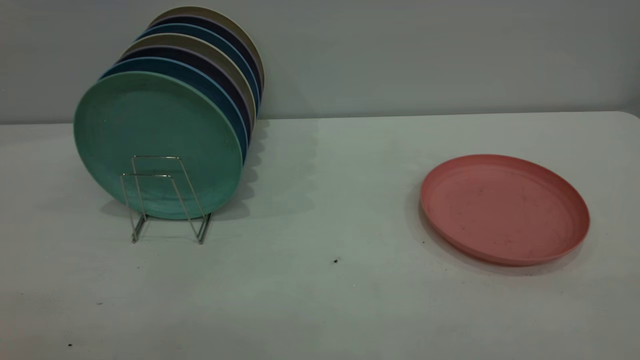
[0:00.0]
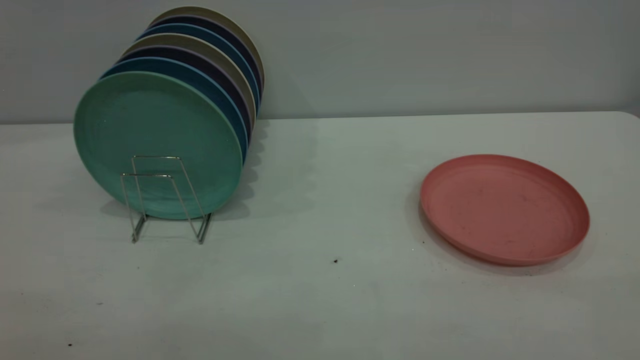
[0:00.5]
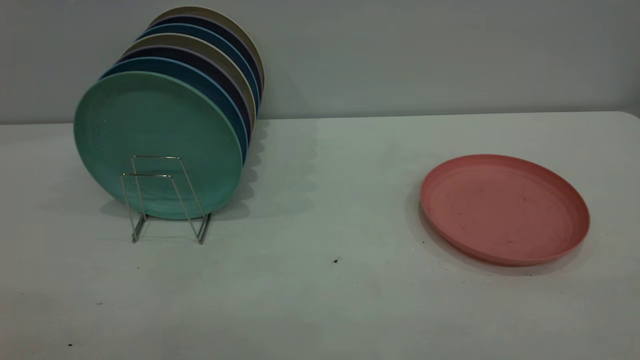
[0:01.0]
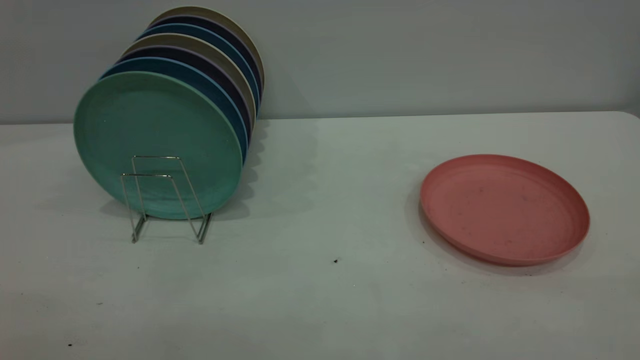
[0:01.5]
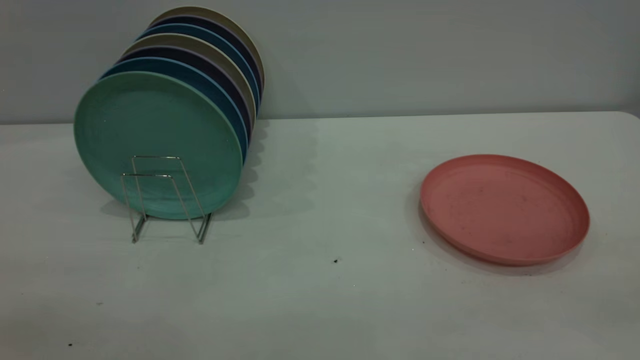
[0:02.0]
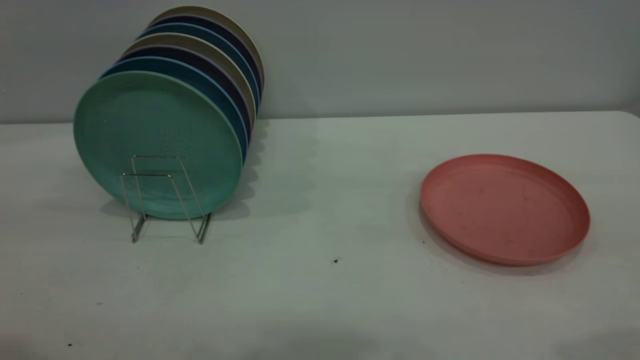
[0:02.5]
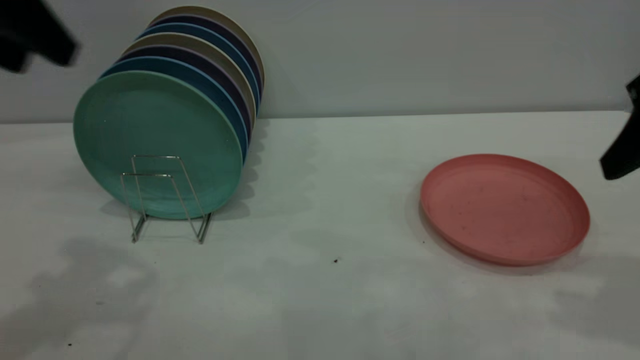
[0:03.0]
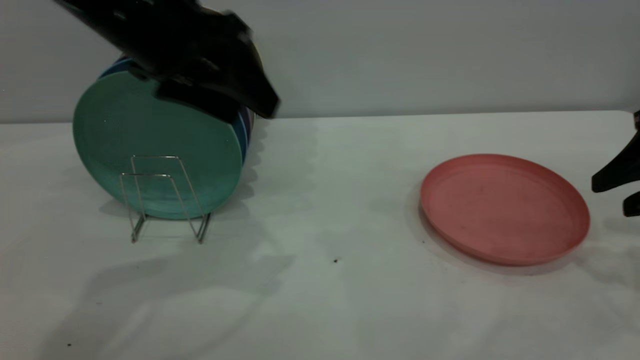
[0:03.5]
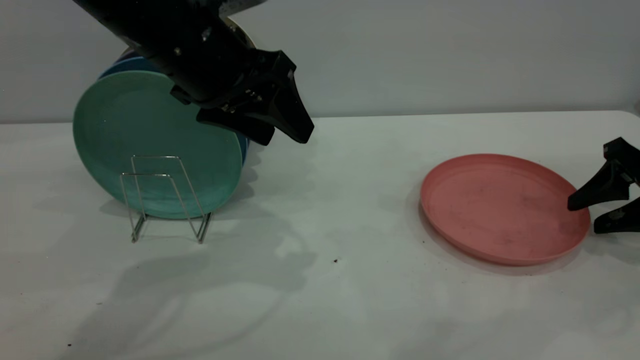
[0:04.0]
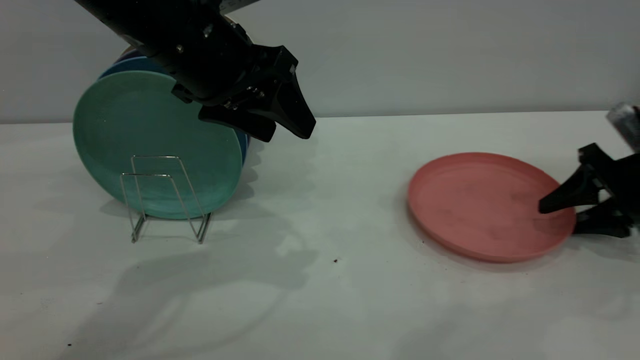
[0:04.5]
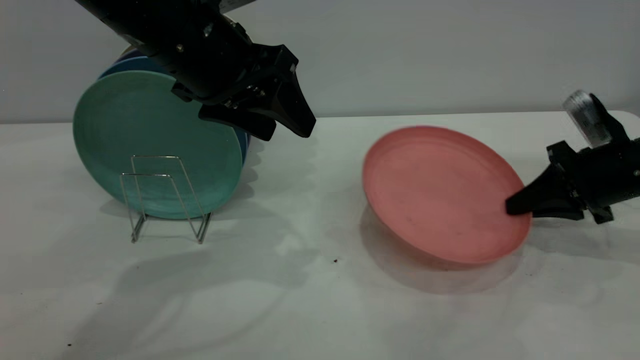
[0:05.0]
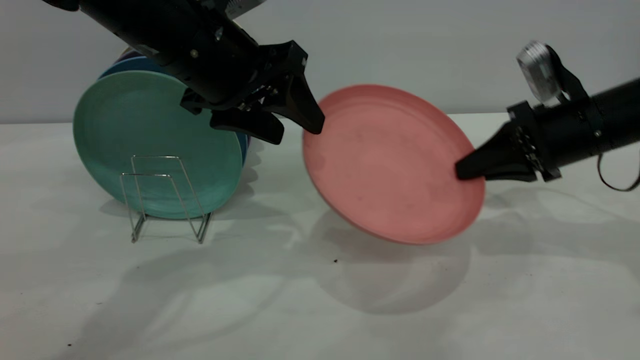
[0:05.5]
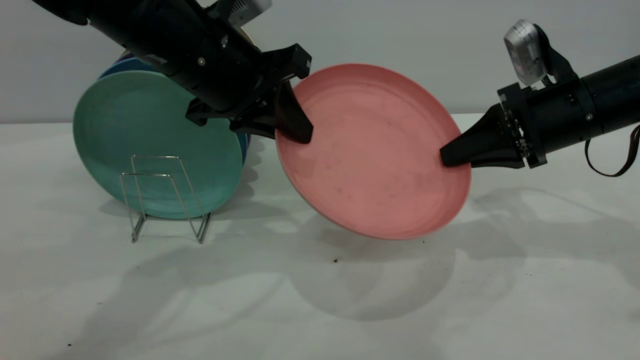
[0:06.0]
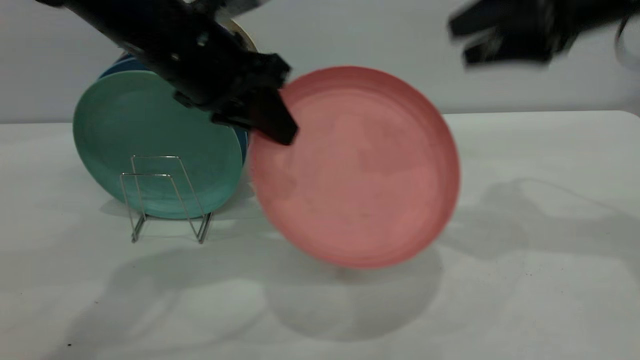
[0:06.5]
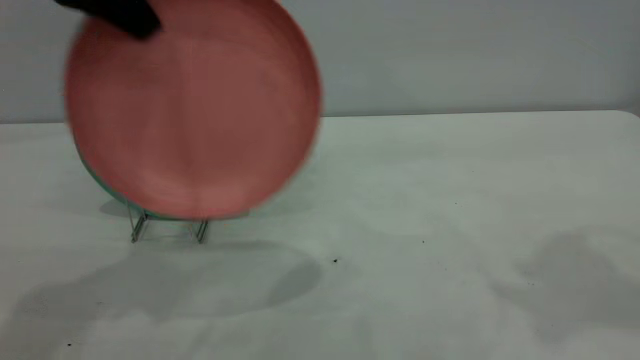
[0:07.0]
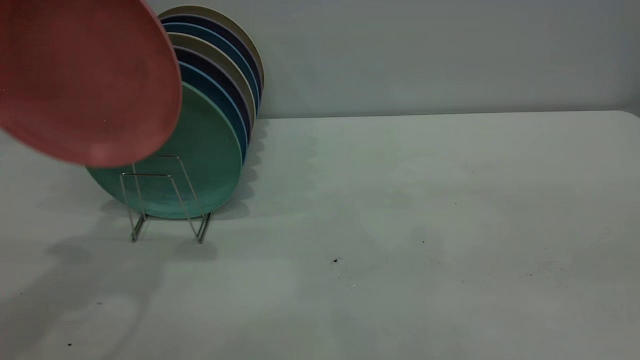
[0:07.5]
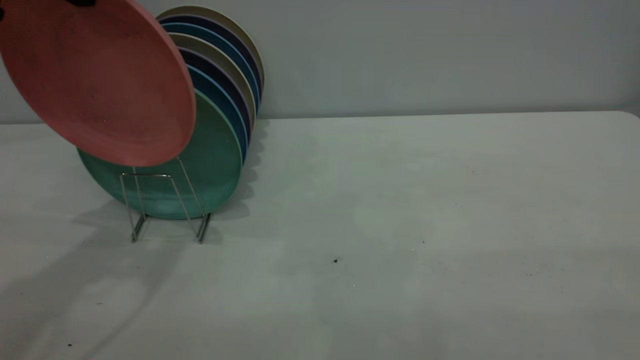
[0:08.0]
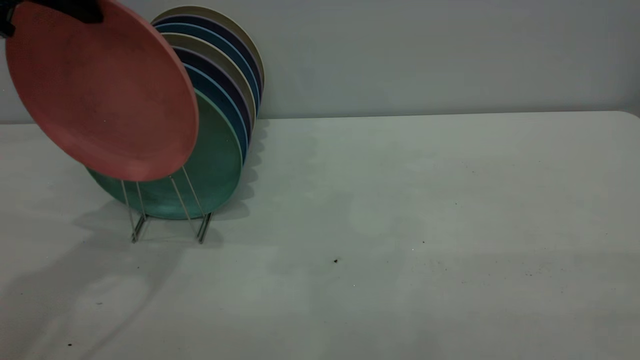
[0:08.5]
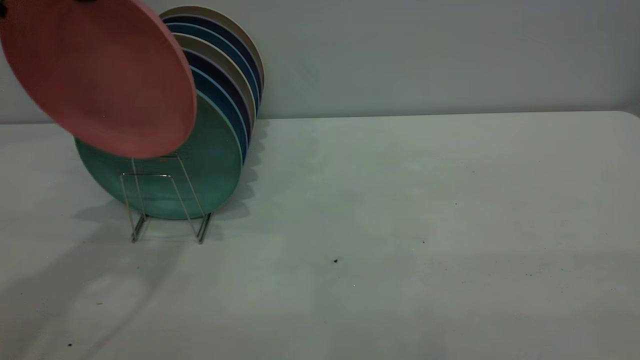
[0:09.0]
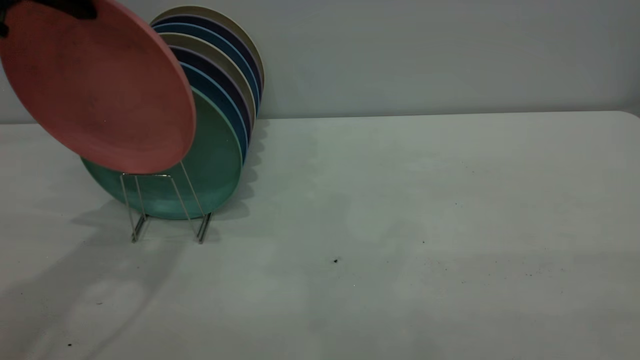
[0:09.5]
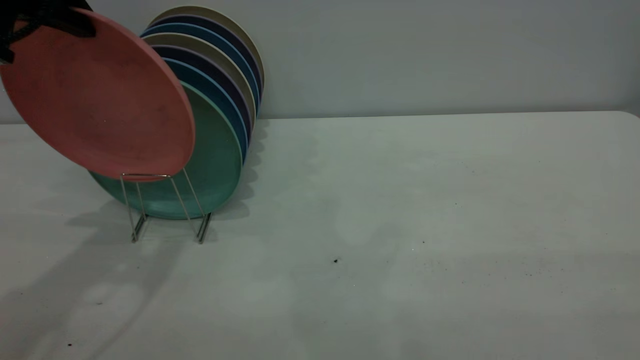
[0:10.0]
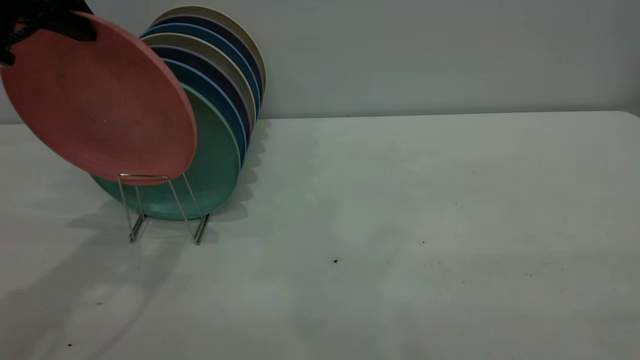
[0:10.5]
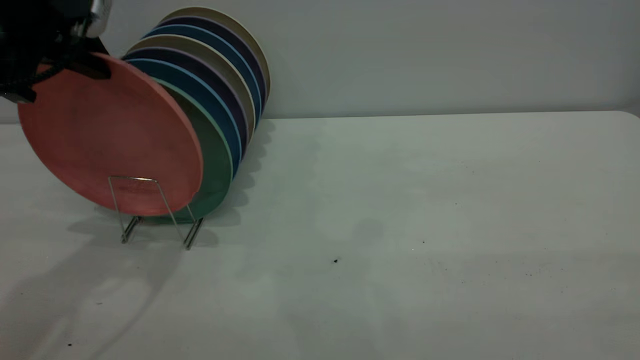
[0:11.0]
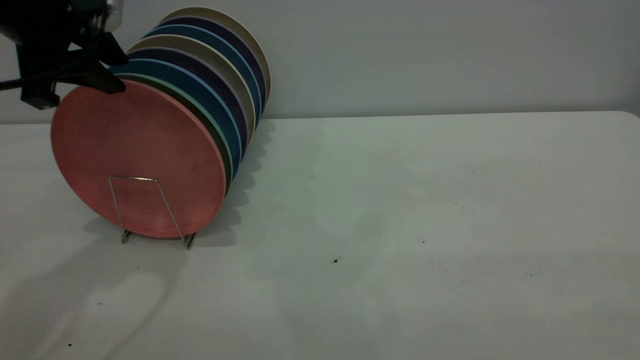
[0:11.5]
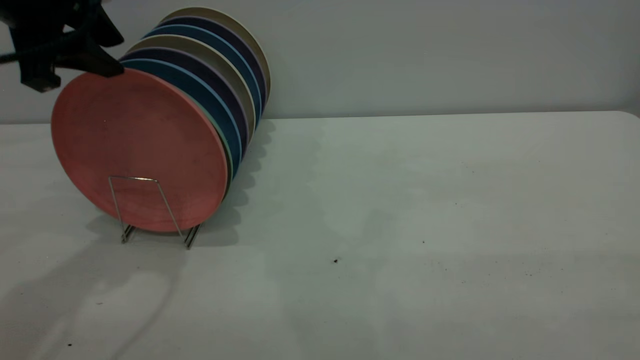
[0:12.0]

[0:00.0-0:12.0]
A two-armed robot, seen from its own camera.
Task of the whole recording: the right gripper grasp the pink plate, the right gripper pass the pink plate to the left gripper, and the left gripper place the pink plate on the plate rack.
Step, 0:00.0 to 0:05.0: Pick up the plate with the right gripper.
Step, 0:05.5 to 0:07.5: Pass the plate from the right gripper to the left gripper.
0:02.0 to 0:04.0: The left gripper moves forward and to the right, approximately 40 cm, while the right gripper moves forward and downward, roughly 40 cm.
0:04.0 to 0:06.0: The right gripper shifts some 15 cm to the left and upward, and closes up. Meanwhile the left gripper closes its fingers.
0:06.0 to 0:08.0: The left gripper heads upward and to the left, covering about 20 cm; the right gripper moves backward and upward, some 40 cm, and opens.
0:08.0 to 0:10.0: The grippers move only a little.
0:10.0 to 0:12.0: The left gripper opens its fingers.

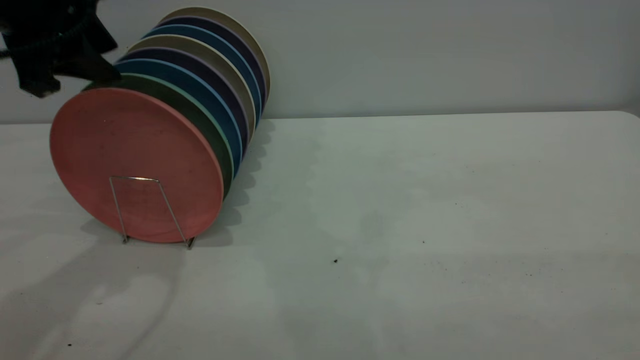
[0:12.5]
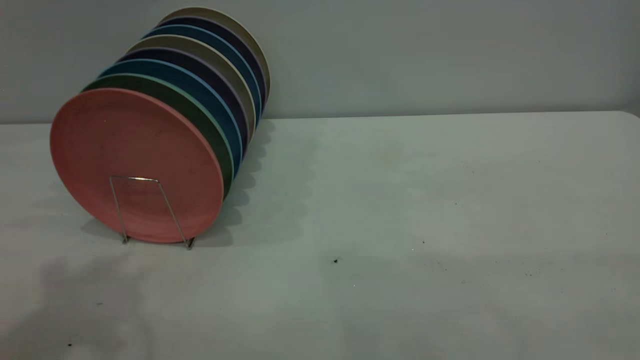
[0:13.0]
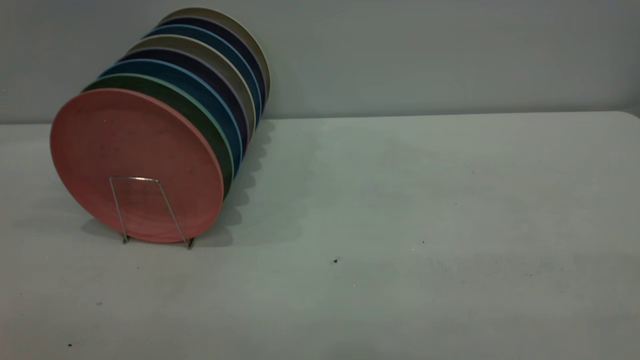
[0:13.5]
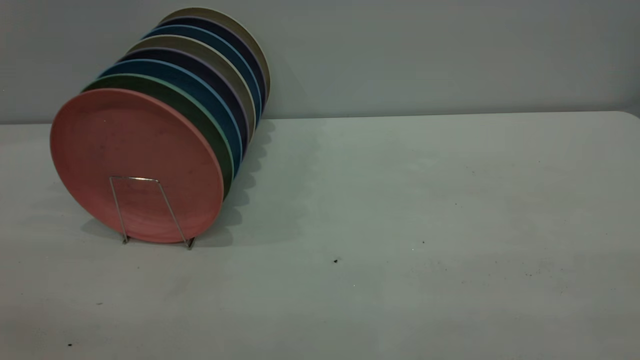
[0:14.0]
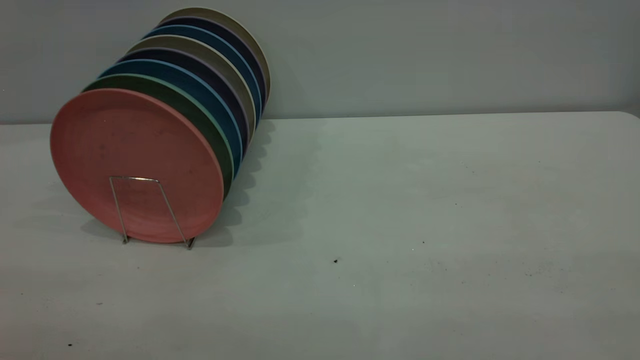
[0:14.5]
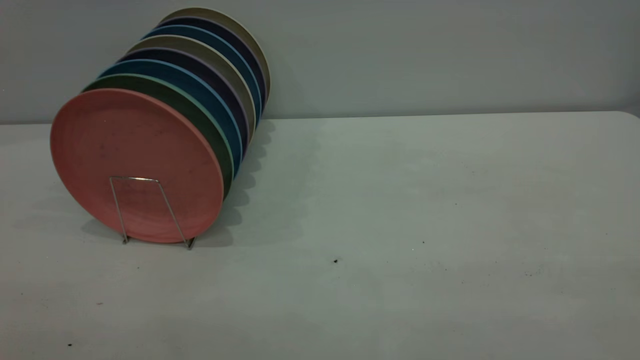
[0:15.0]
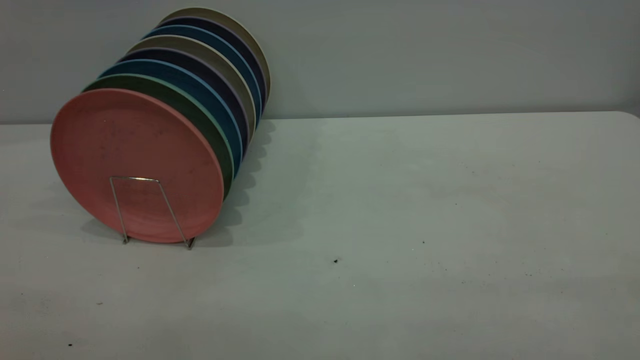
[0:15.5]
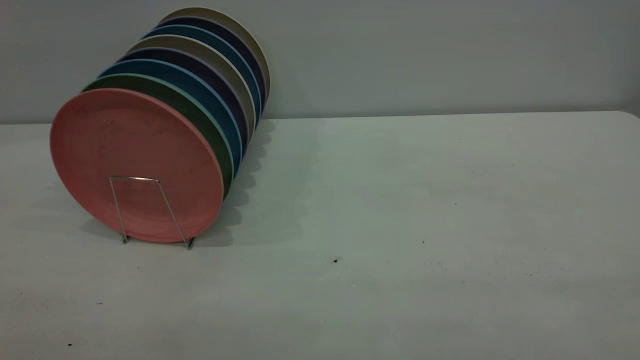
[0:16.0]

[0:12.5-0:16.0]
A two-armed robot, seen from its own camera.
Task of the whole recording: the right gripper grasp the pink plate, the right gripper pass the pink plate to the left gripper, and the left gripper place the pink plate on the plate rack.
0:12.5 to 0:14.5: The left gripper heads backward, covering approximately 35 cm.

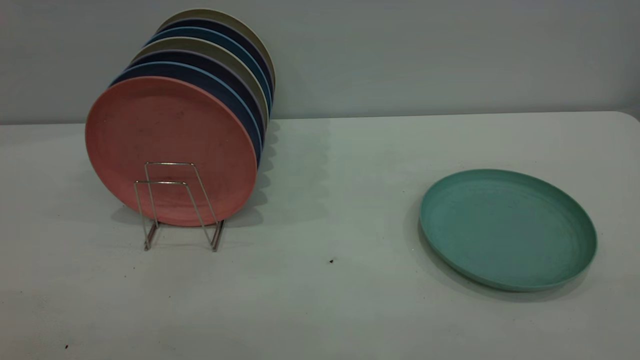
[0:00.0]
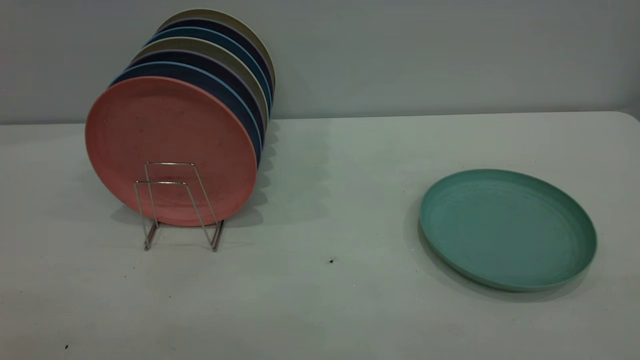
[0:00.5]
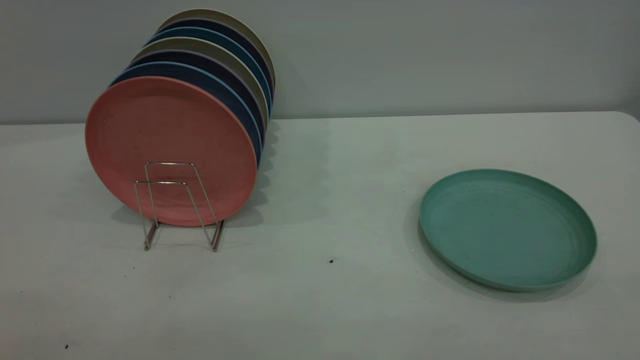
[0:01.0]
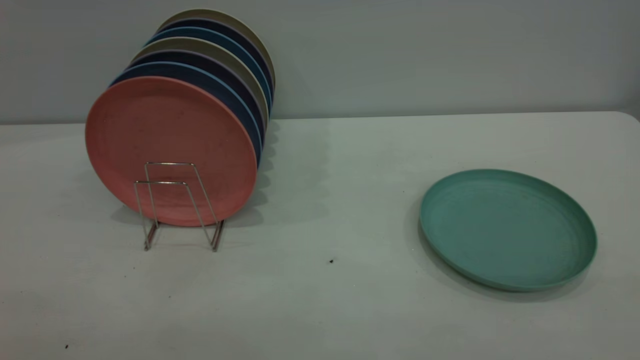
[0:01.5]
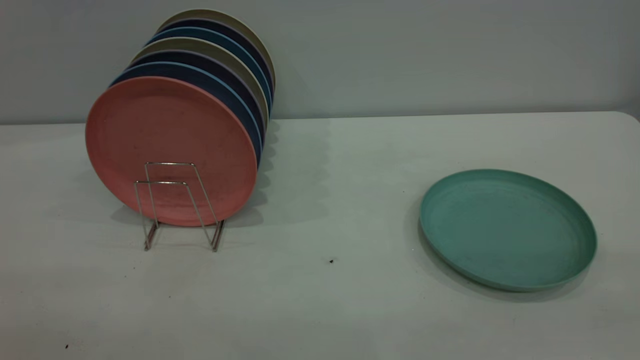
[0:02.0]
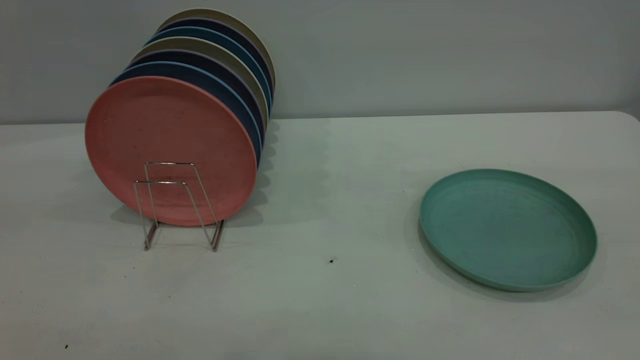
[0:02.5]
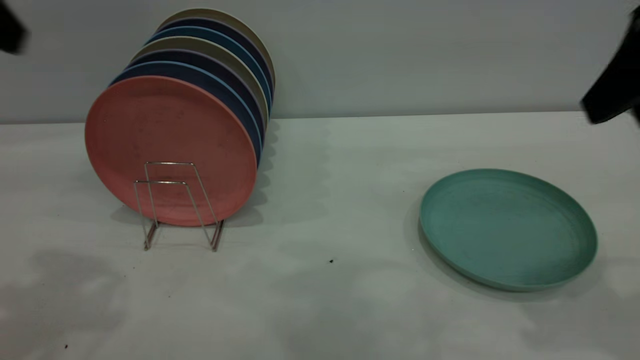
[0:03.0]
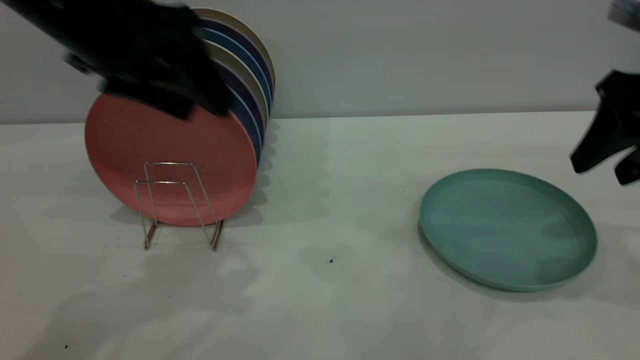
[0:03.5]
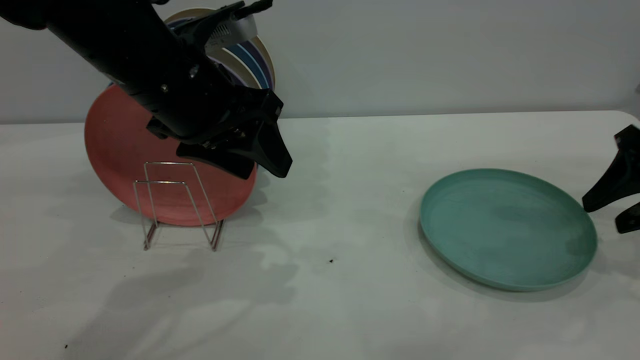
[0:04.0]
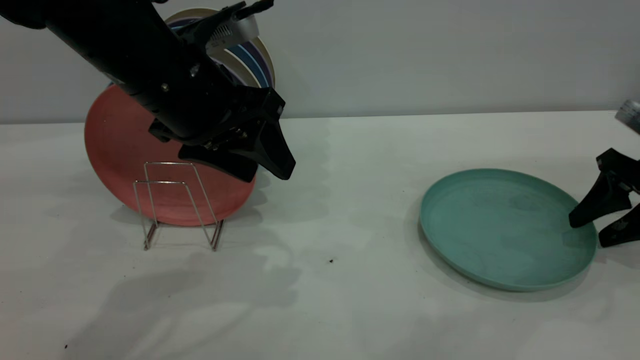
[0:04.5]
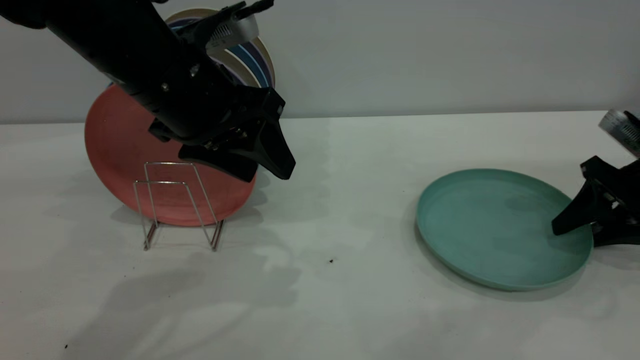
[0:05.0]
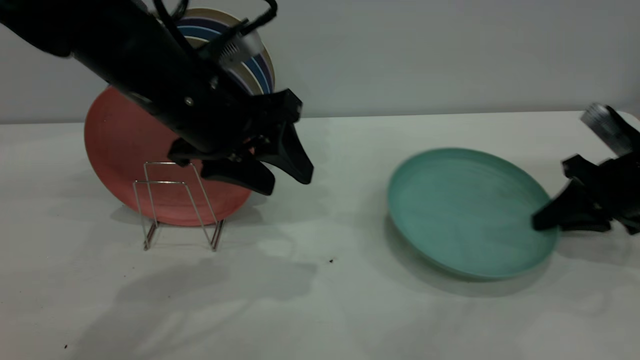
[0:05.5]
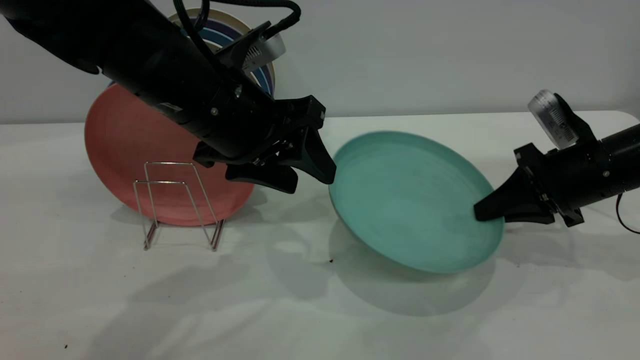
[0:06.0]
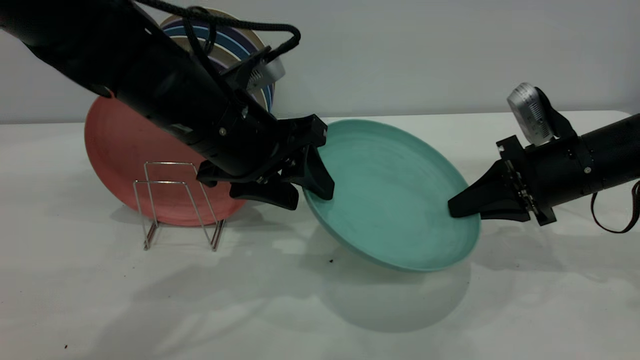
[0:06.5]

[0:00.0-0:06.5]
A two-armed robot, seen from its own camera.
Task of the whole recording: the right gripper grasp the green plate, the right gripper pass the green plate to the left gripper, and the left gripper place the green plate on the plate rack.
Step, 0:00.0 to 0:05.5: Pick up the plate with the right gripper.
0:02.0 to 0:04.5: The right gripper moves forward and downward, approximately 40 cm. Meanwhile the left gripper shifts approximately 40 cm forward, to the right and downward.
0:04.5 to 0:06.5: The left gripper changes place by about 5 cm, while the right gripper moves to the left, roughly 10 cm, and closes up.
